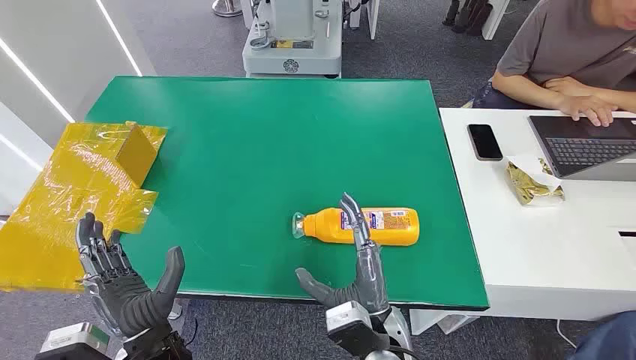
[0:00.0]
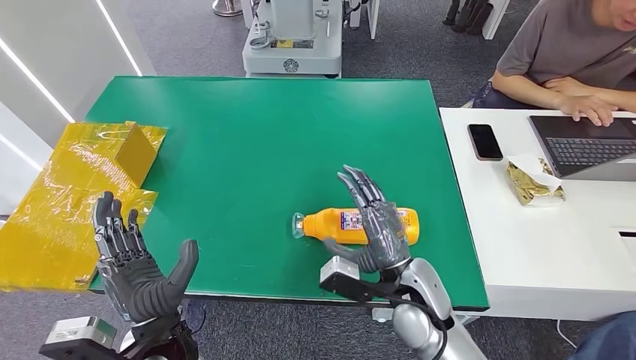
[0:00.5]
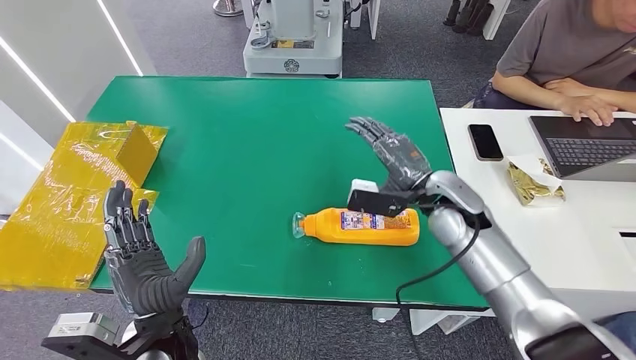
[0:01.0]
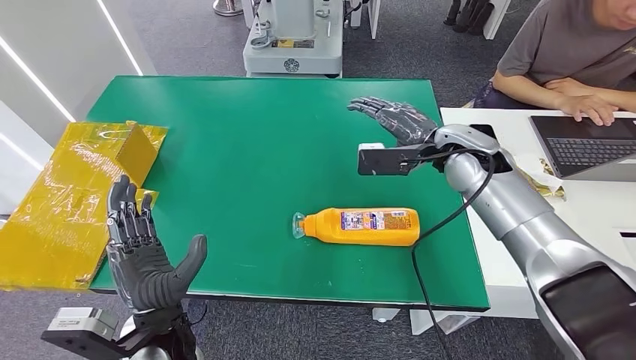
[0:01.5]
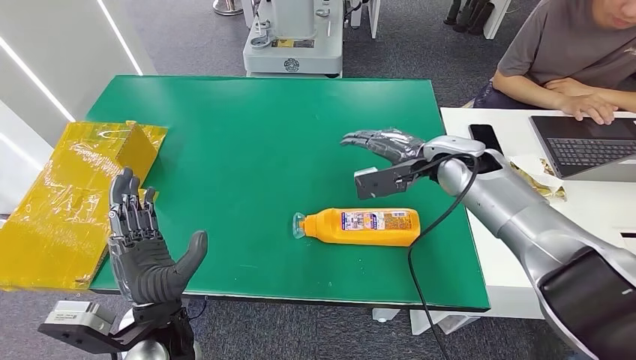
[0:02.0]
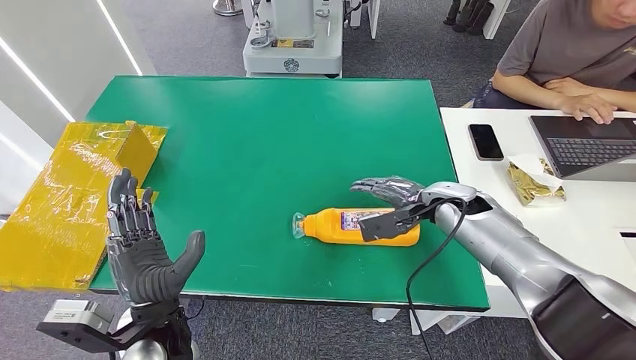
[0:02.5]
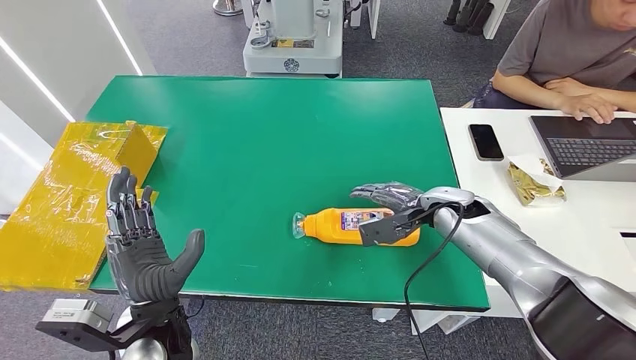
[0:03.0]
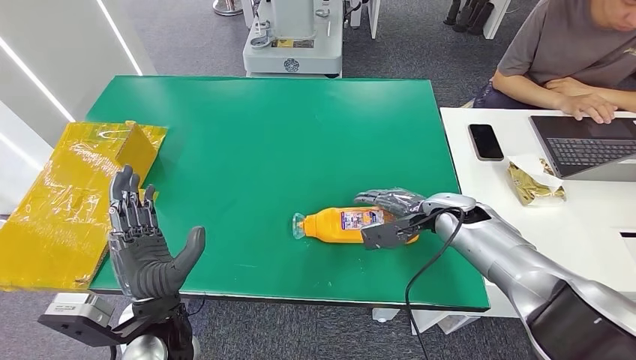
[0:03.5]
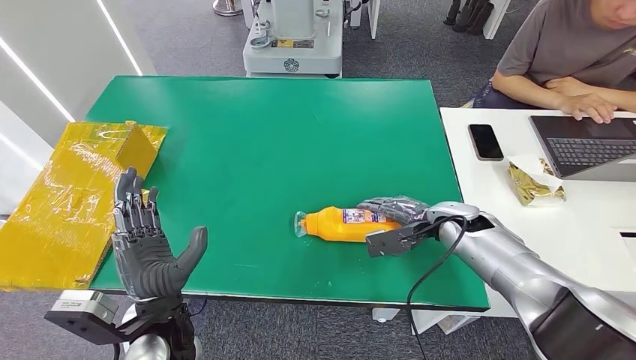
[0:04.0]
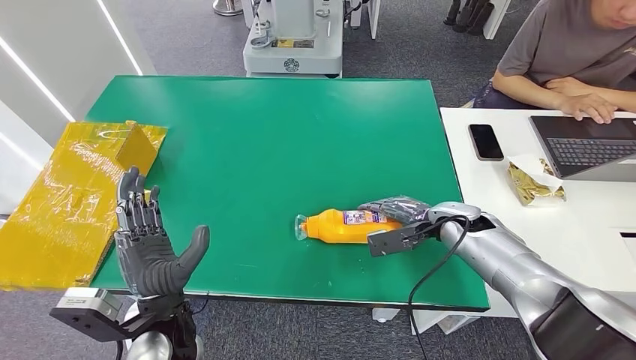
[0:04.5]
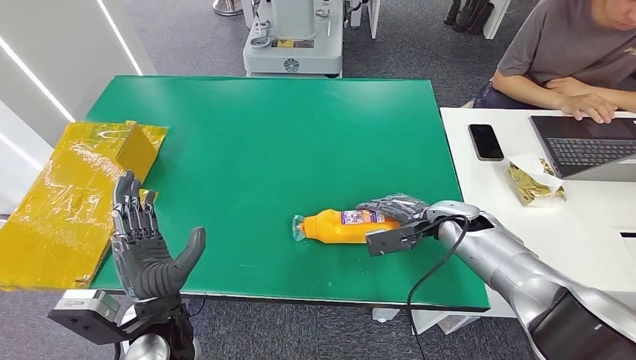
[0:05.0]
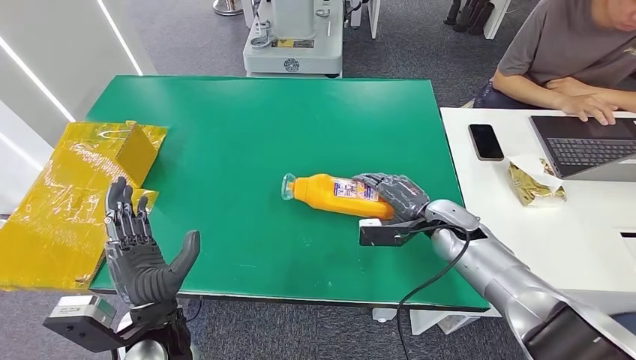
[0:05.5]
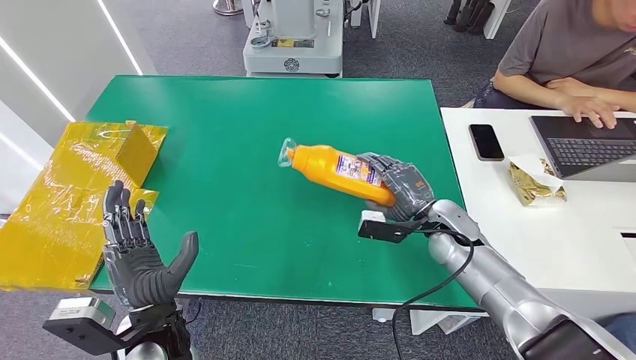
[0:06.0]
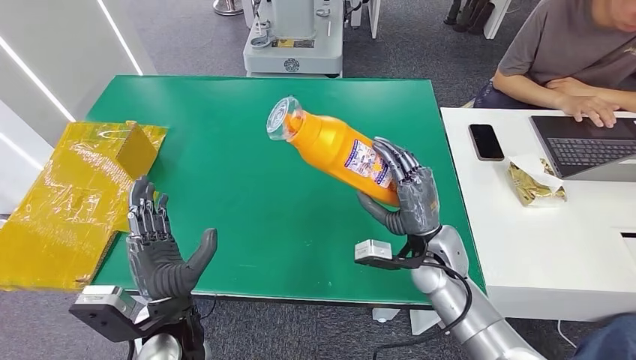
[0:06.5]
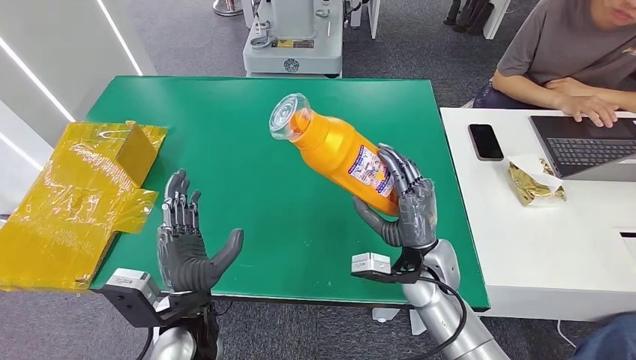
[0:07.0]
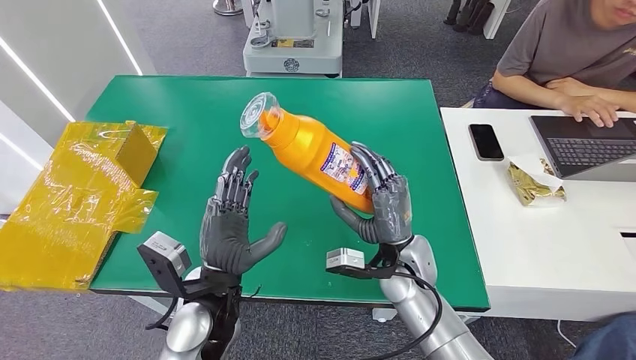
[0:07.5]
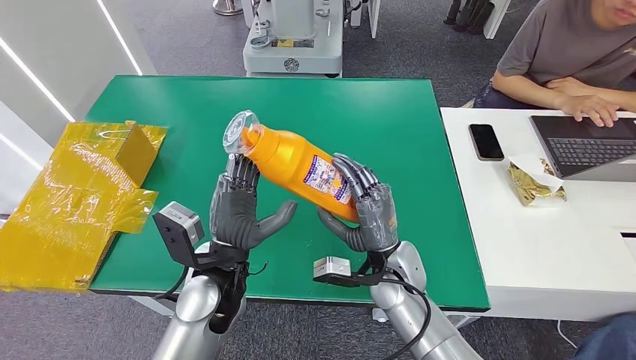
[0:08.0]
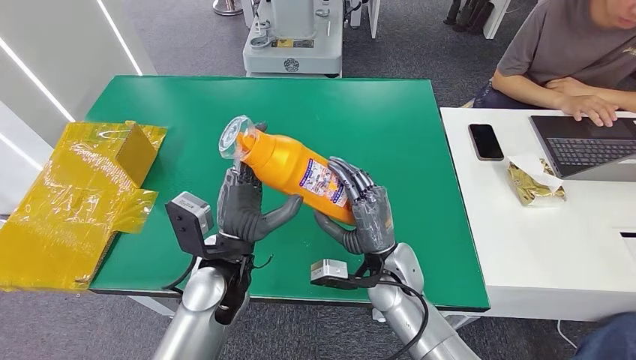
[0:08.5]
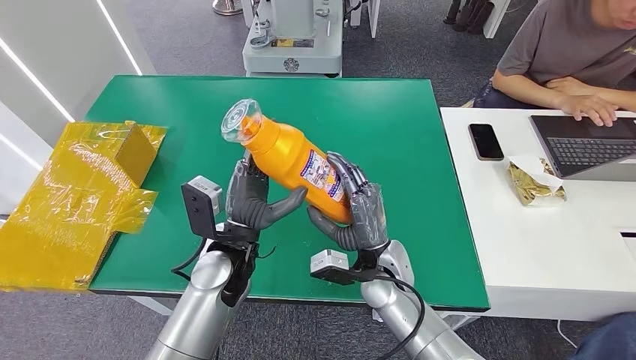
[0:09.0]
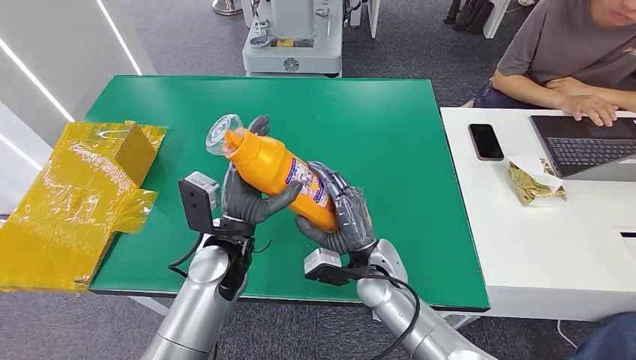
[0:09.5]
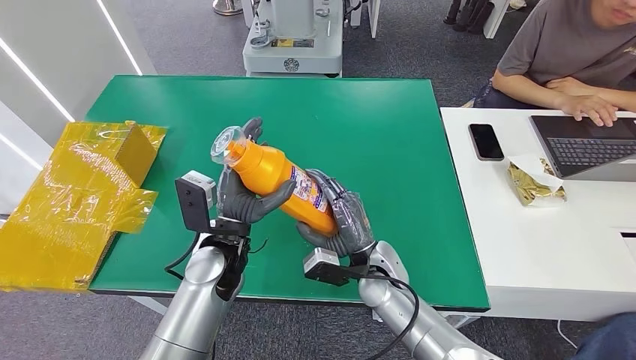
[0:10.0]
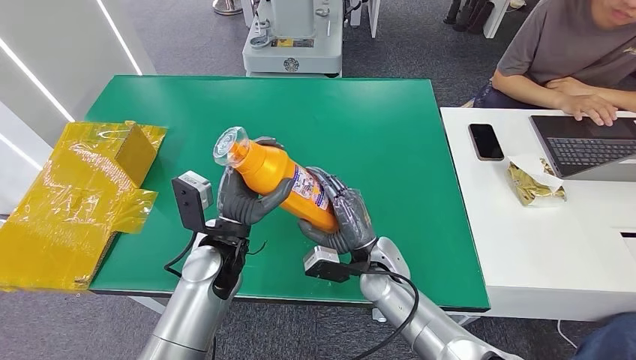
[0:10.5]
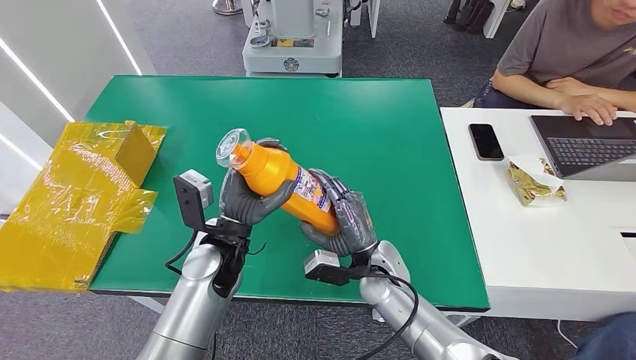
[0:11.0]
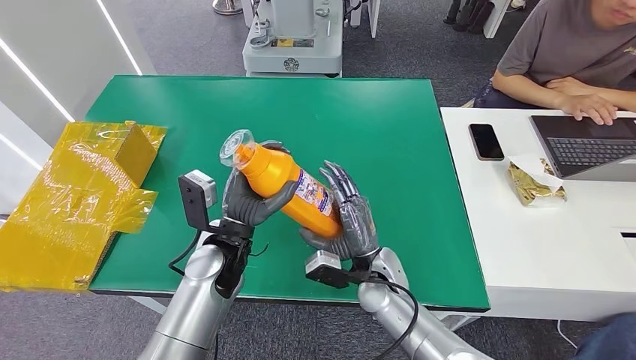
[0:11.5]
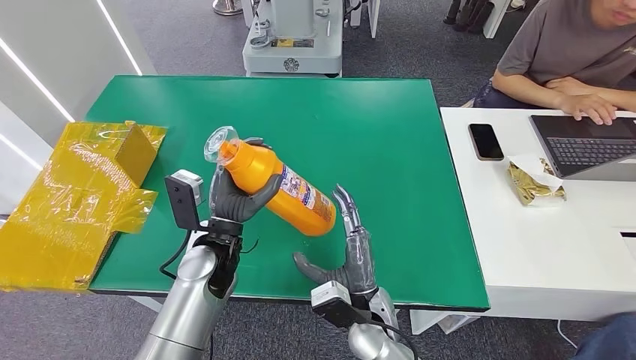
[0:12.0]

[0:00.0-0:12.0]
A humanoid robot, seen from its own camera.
Step, 0:00.0 to 0:06.0: Pick up the bottle from the table.
0:02.0 to 0:04.0: The right hand shifts roughly 15 cm downward.
0:10.0 to 0:12.0: The right hand heads backward, covering roughly 10 cm.

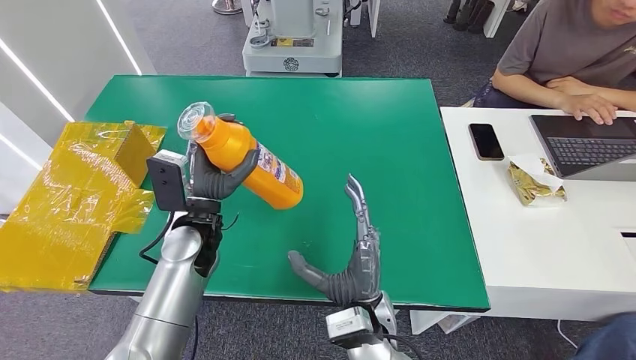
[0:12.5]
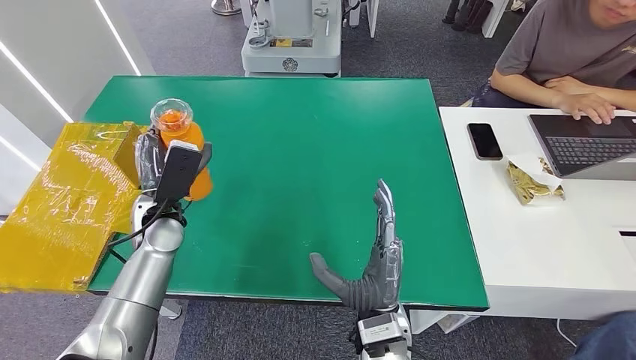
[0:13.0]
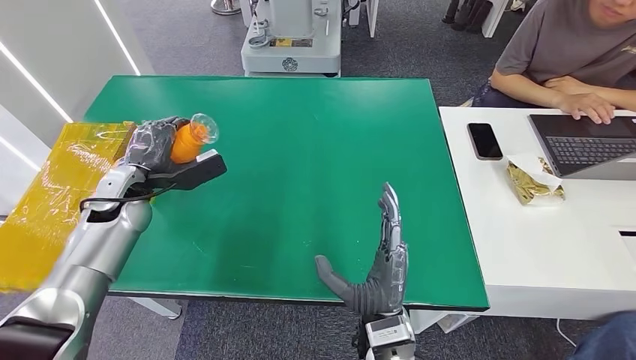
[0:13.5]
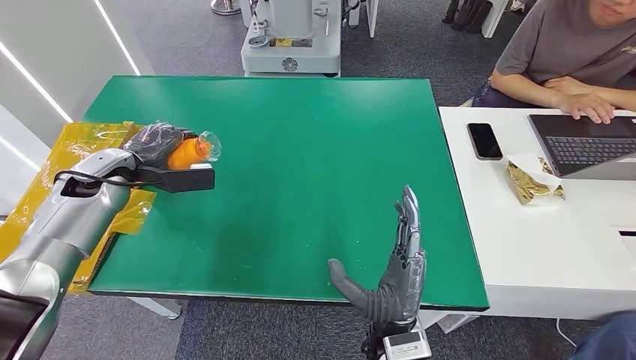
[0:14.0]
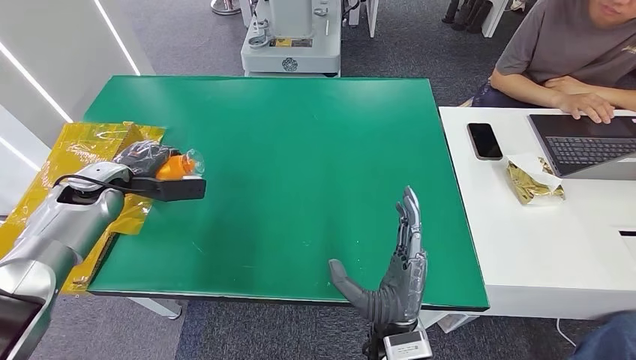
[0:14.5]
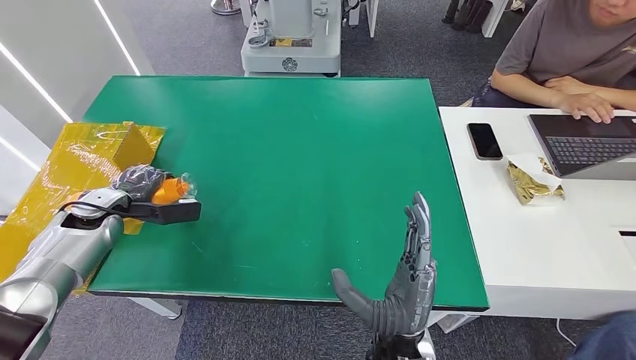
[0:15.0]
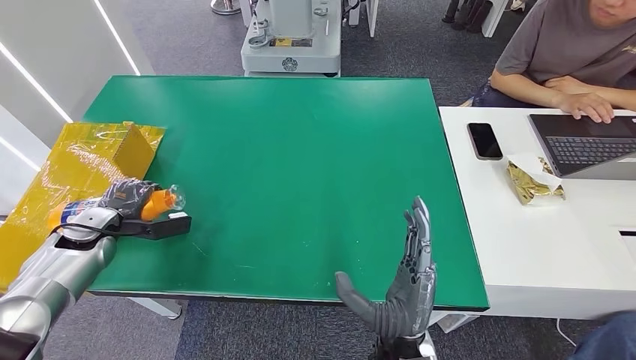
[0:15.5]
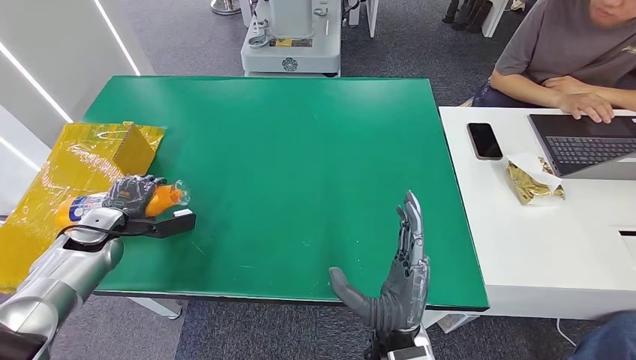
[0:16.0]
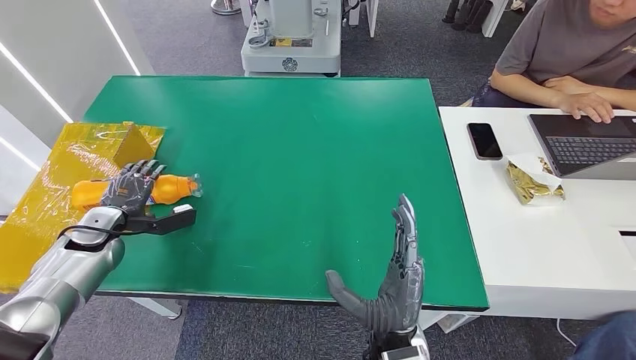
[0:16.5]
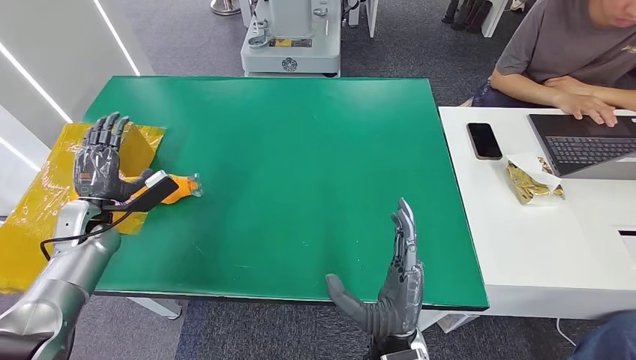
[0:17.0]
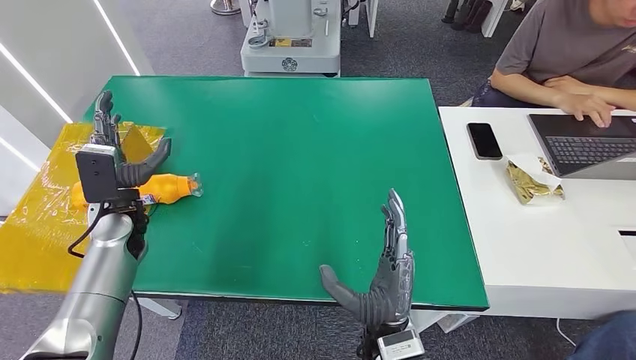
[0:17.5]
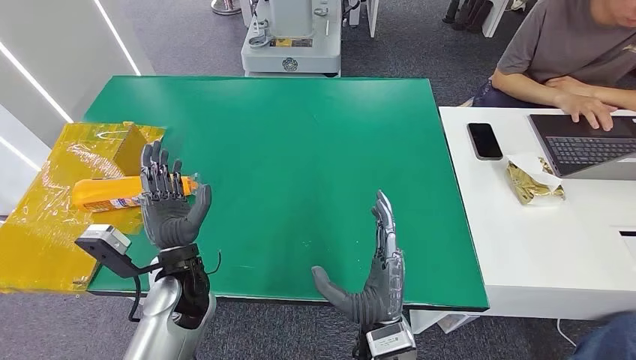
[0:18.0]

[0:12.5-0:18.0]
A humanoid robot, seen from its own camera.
Step, 0:12.5 to 0:18.0: Turn the bottle to the front side.
0:14.5 to 0:16.0: The left hand goes approximately 10 cm downward and backward.
0:16.0 to 0:18.0: The left hand goes some 25 cm to the right.
